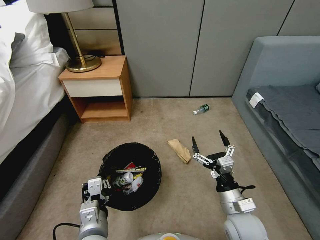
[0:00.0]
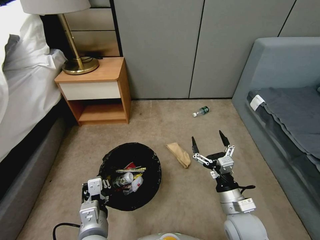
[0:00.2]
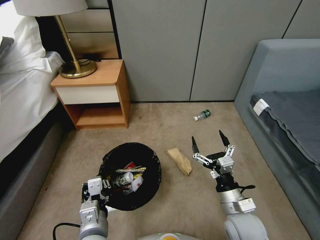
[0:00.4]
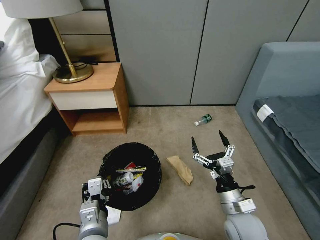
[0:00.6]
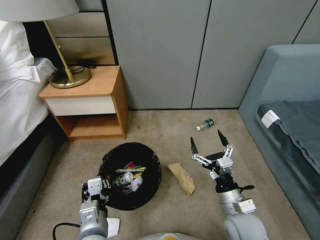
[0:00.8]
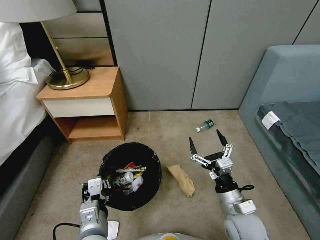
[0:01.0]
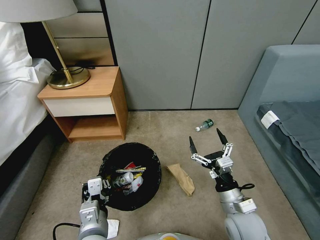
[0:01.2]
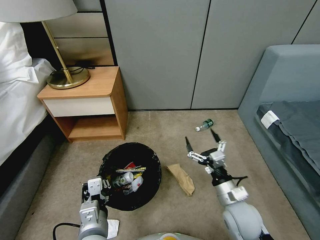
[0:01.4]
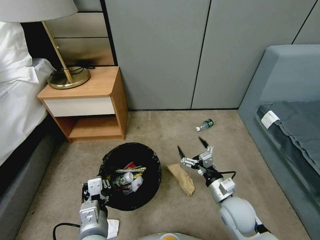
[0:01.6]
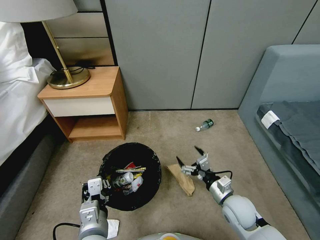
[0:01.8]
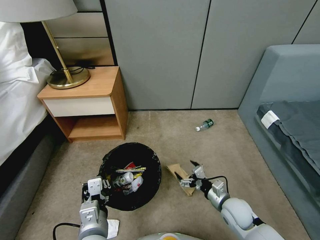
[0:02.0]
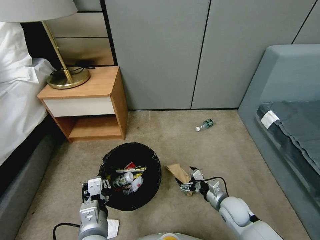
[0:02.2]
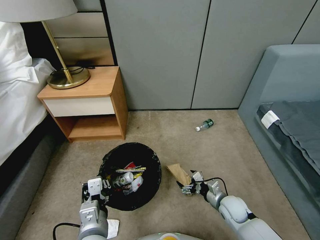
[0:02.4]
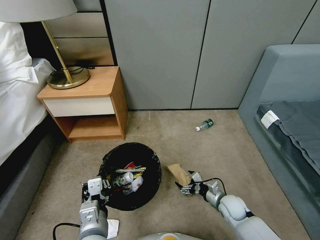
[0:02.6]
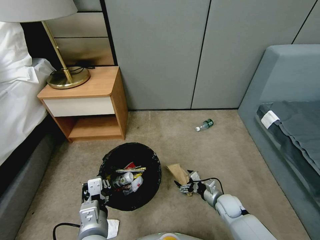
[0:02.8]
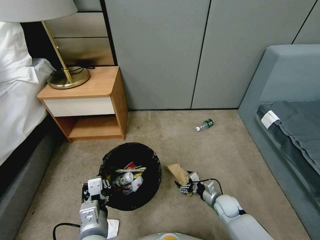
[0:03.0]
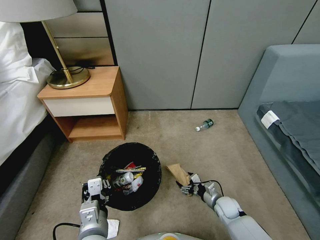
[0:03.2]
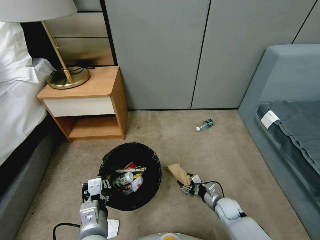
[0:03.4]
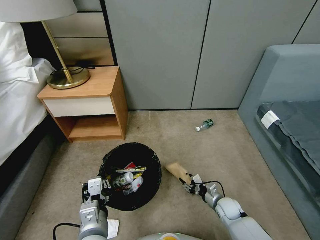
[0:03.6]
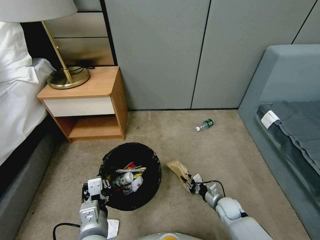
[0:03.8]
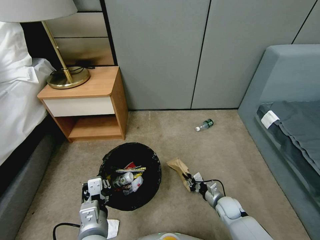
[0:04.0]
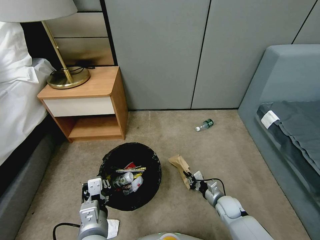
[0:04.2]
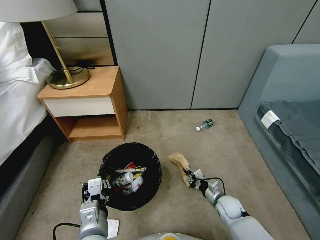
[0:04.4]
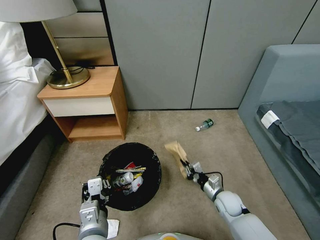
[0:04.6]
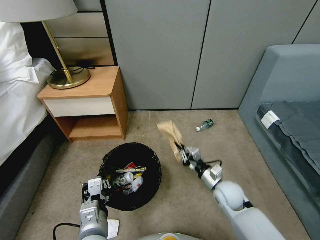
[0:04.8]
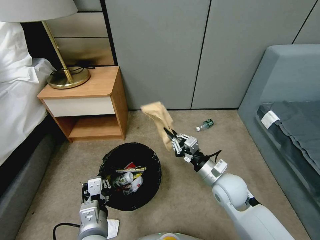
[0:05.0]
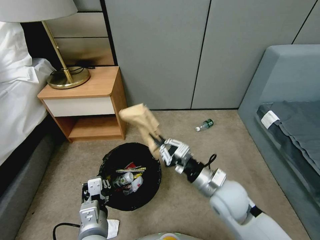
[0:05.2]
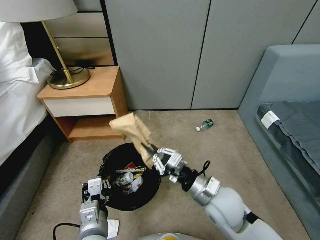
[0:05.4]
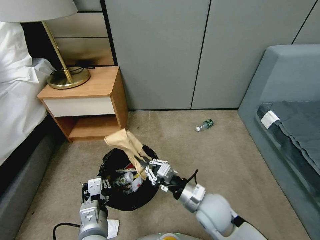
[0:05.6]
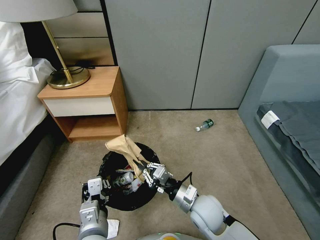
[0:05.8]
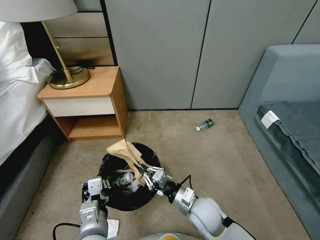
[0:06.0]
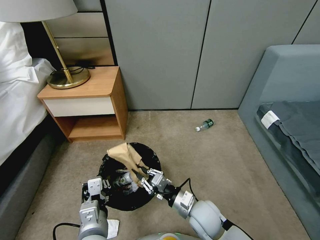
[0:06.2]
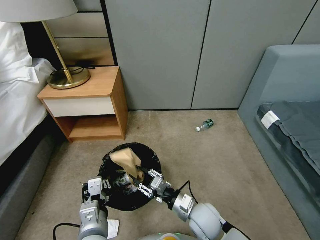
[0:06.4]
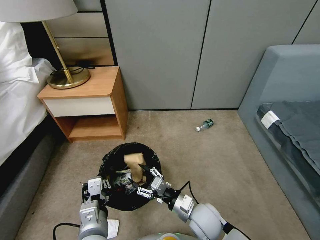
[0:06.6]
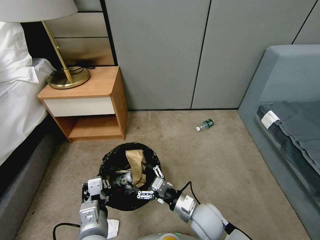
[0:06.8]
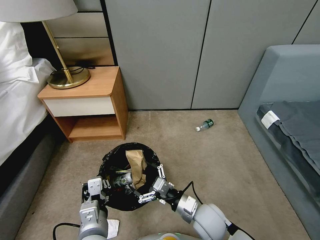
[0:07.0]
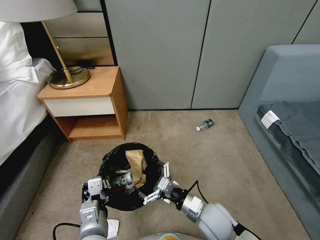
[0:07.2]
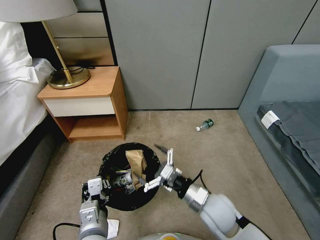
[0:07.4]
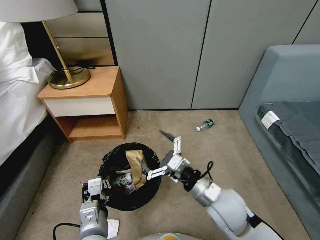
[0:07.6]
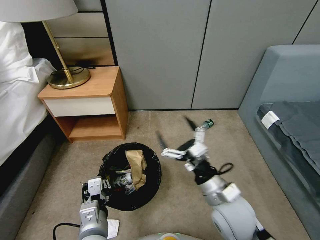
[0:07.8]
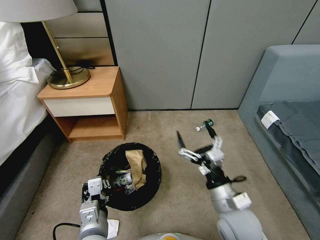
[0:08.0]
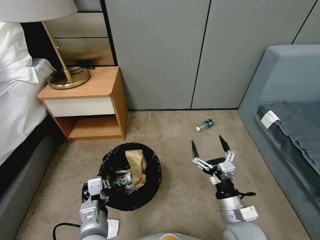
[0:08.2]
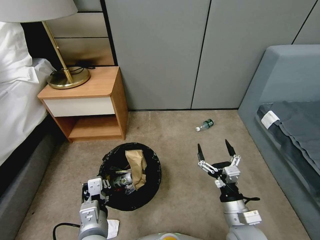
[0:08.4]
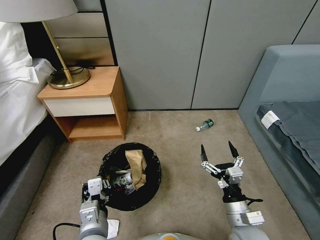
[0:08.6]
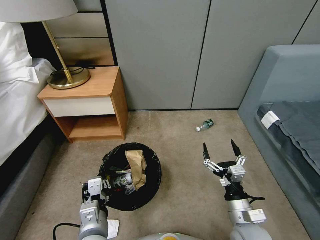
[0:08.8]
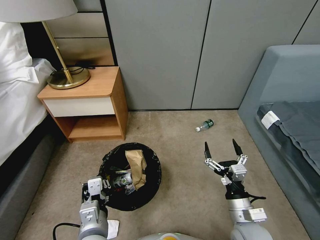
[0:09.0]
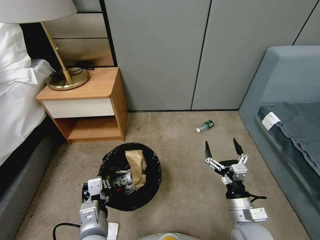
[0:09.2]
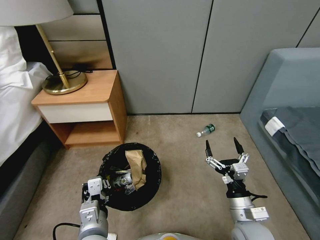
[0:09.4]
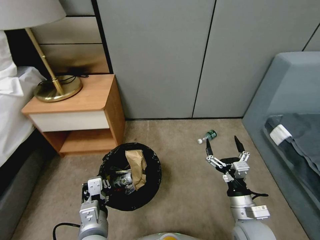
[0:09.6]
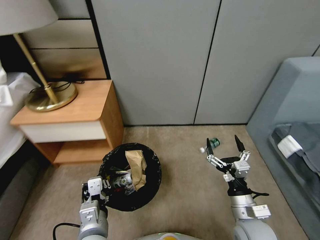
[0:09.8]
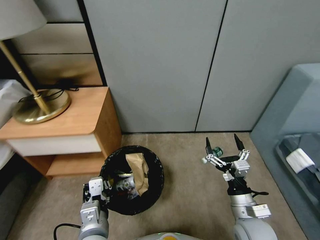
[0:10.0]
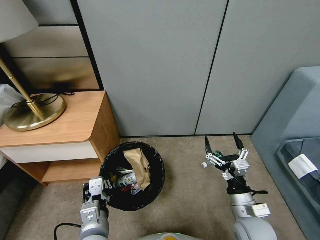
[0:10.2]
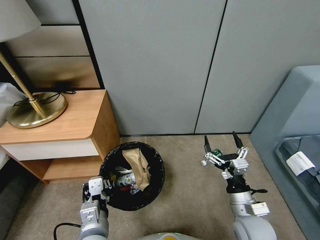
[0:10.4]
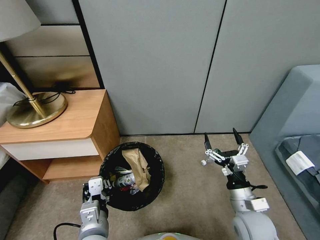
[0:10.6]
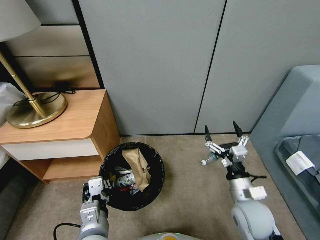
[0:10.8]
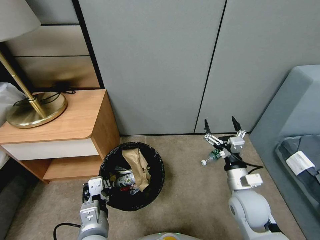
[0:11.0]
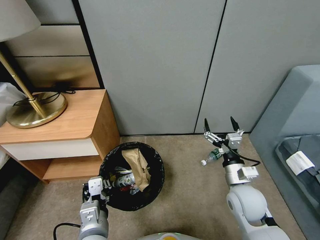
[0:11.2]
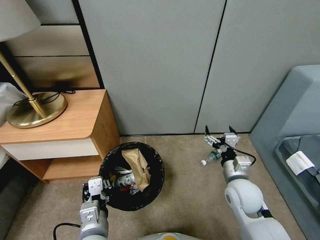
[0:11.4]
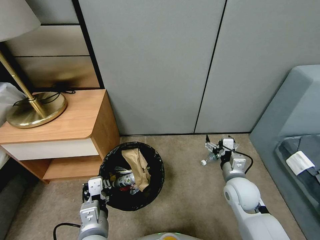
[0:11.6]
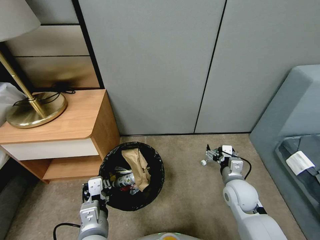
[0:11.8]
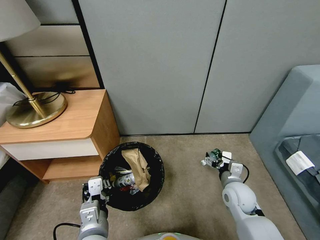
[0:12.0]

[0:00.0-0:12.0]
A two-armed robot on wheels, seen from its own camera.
Task of the whole recording: Pick up the trash bin, then pick up the garbage from the floor and place it into the trash bin.
0:01.6 to 0:03.0: The right gripper is displaced downward by roughly 15 cm.
0:03.0 to 0:04.4: The right gripper closes its fingers.
0:04.4 to 0:06.0: The right gripper goes about 20 cm upward and to the left.
0:06.0 to 0:07.6: The right gripper heads upward, covering about 10 cm, and opens its fingers.
0:07.6 to 0:09.0: The right gripper travels to the right, downward and backward by some 10 cm.
0:10.4 to 0:12.0: The right gripper shifts about 10 cm forward.

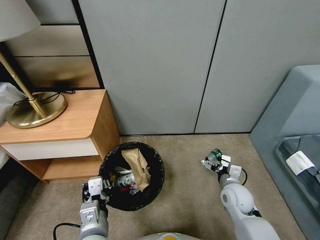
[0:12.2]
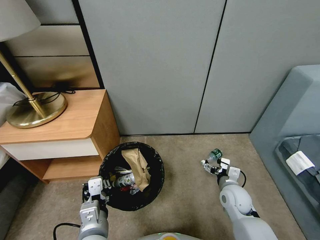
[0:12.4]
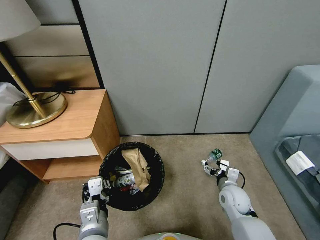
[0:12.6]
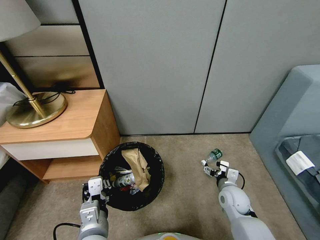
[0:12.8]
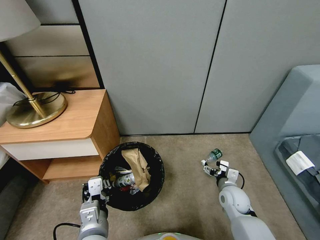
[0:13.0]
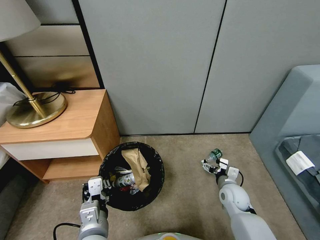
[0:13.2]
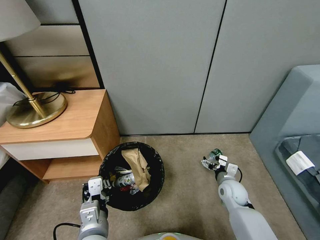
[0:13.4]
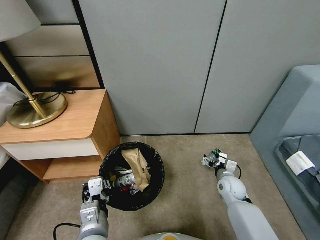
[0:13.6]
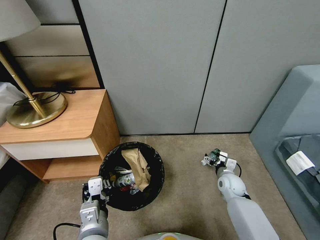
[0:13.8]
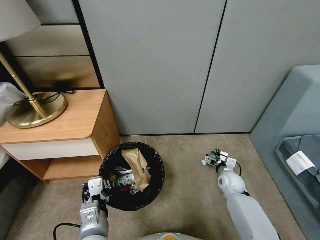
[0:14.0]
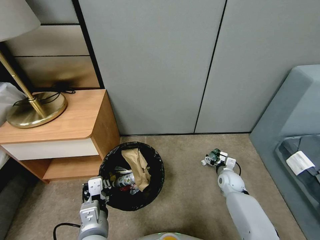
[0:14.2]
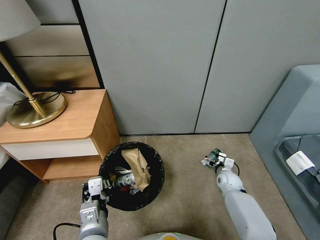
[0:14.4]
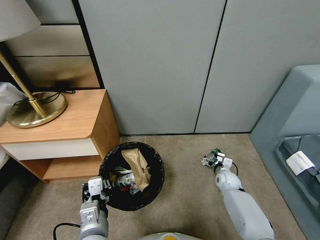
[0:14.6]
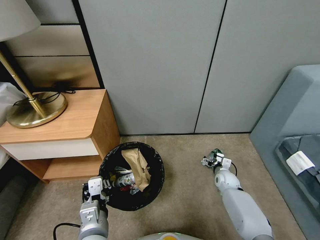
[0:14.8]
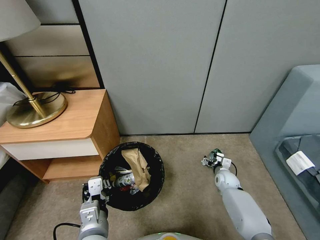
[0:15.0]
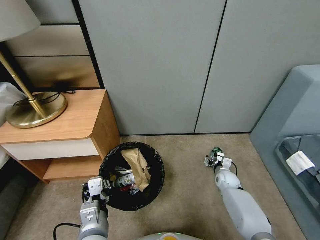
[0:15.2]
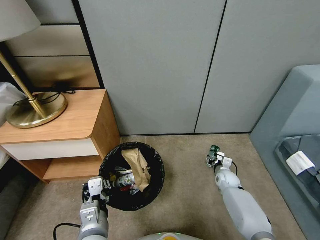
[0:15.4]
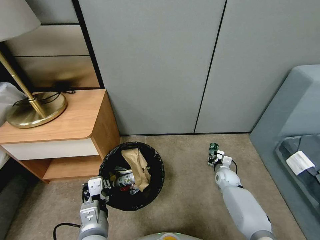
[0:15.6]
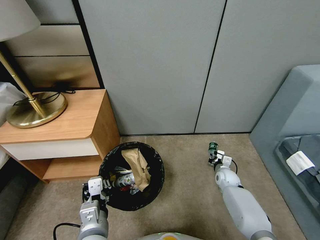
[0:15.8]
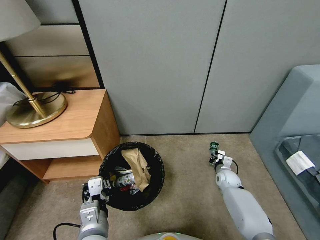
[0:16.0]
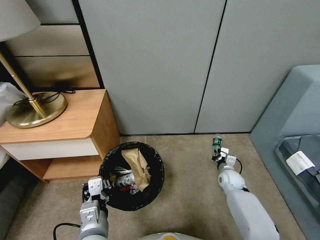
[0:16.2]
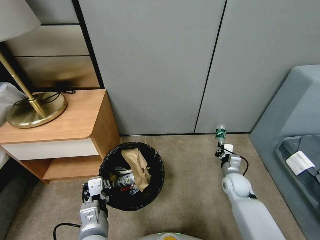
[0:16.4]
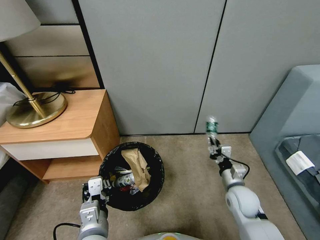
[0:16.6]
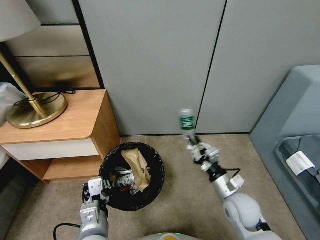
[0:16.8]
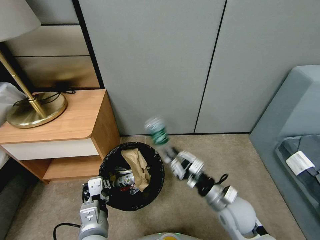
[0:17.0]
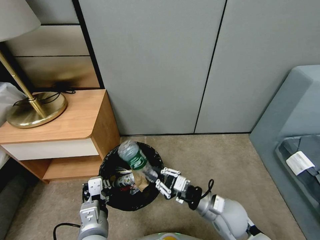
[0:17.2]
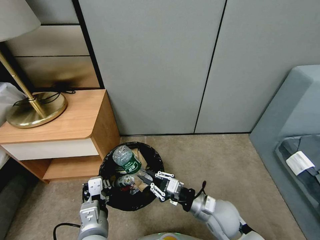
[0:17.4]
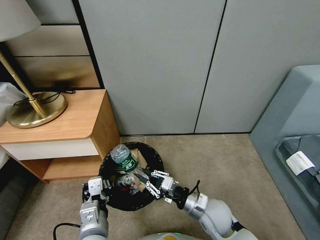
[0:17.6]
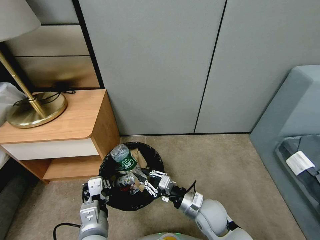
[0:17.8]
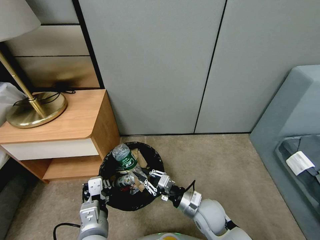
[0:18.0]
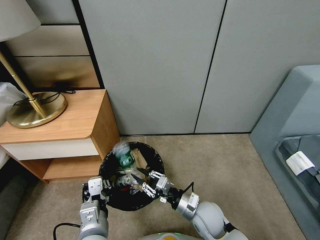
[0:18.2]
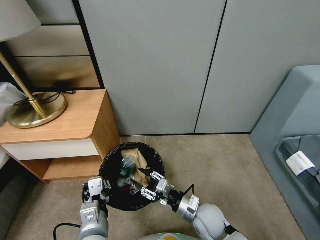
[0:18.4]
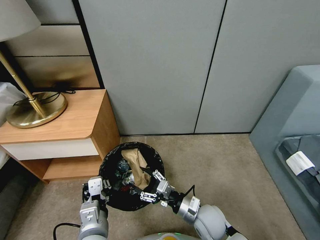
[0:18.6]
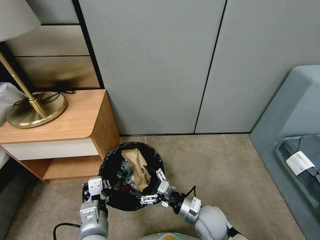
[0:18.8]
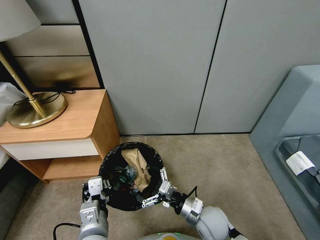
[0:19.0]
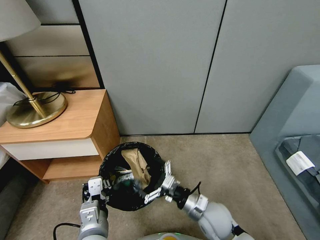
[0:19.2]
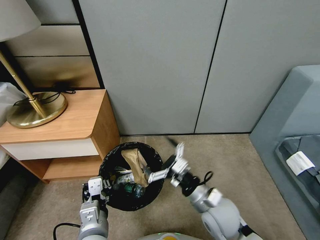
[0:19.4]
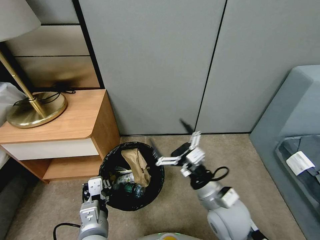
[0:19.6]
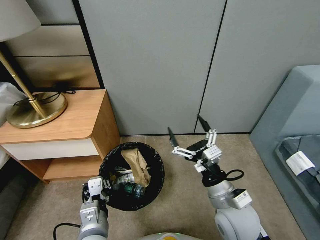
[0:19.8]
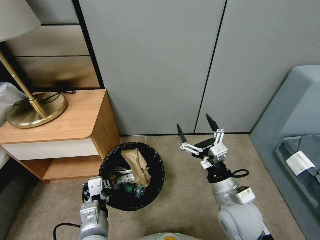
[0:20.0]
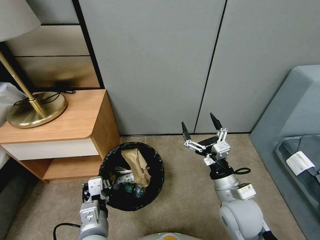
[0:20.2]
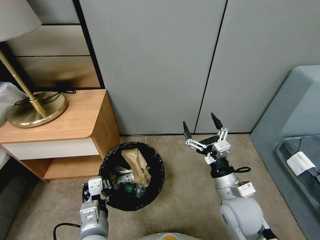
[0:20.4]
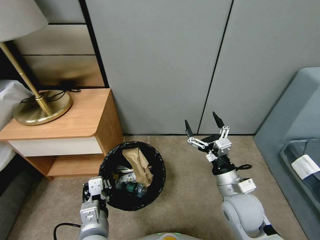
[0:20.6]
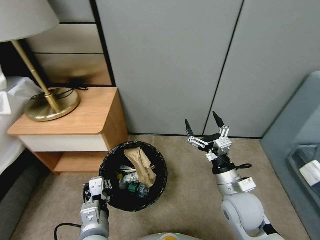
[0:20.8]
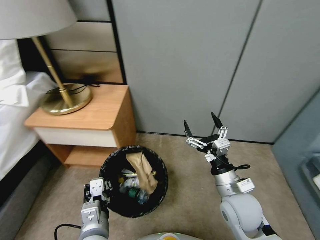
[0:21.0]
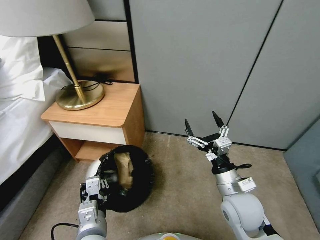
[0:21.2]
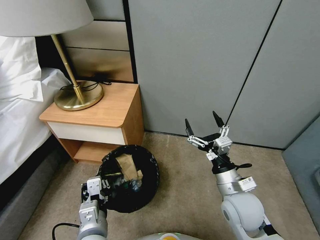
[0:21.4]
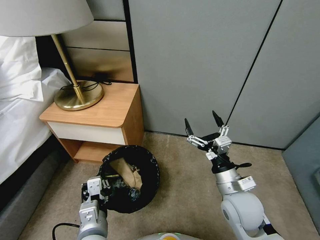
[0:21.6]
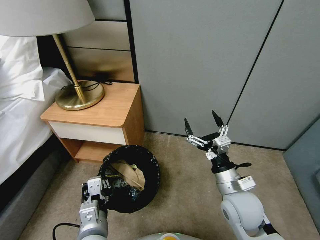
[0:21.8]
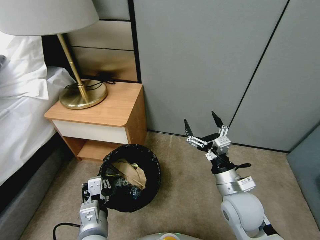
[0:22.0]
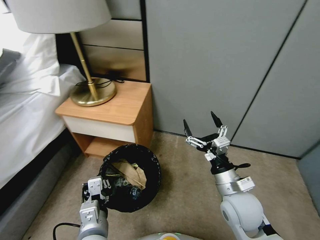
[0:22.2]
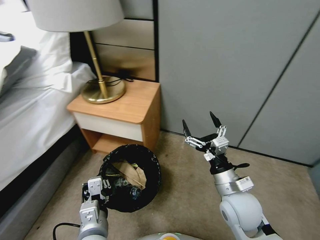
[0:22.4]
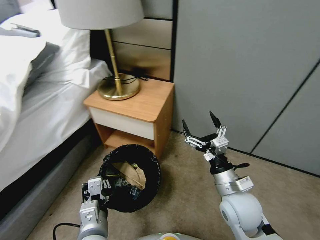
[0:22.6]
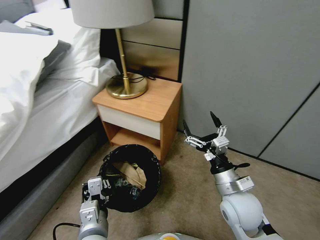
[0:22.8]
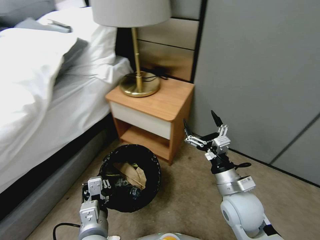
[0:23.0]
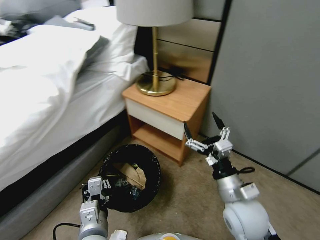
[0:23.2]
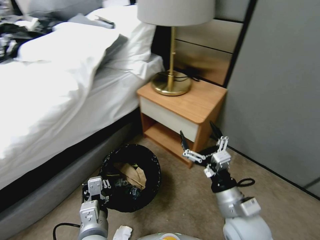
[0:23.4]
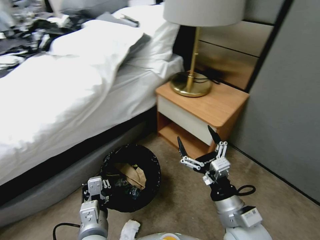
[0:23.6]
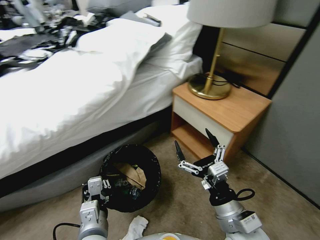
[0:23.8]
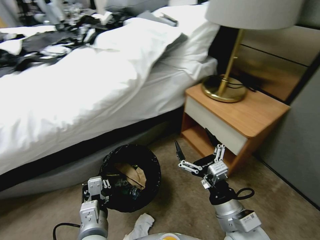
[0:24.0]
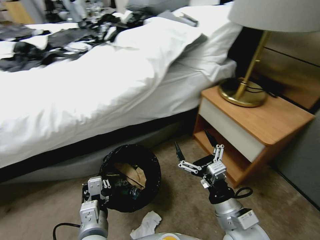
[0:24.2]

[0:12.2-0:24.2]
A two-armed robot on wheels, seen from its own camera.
Task of the whole recording: Pick up the trash bin, then pick up the garbage from the floor and place it into the trash bin.
0:12.2 to 0:13.8: The right gripper is displaced downward and forward by some 10 cm.
0:13.8 to 0:15.2: The right gripper is displaced downward by roughly 5 cm.
0:15.2 to 0:16.6: The right gripper is displaced upward and backward by roughly 15 cm, and closes its fingers.
0:16.6 to 0:18.2: The right gripper is displaced to the left and backward by about 15 cm.
0:18.2 to 0:19.8: The right gripper travels upward by some 15 cm, and opens up.
0:22.6 to 0:24.2: The right gripper goes roughly 5 cm backward.
